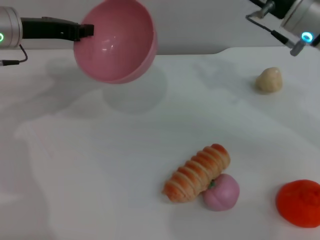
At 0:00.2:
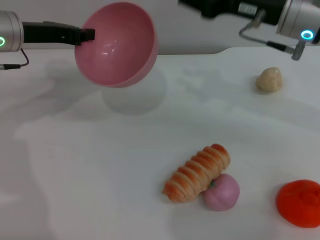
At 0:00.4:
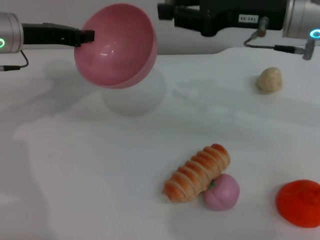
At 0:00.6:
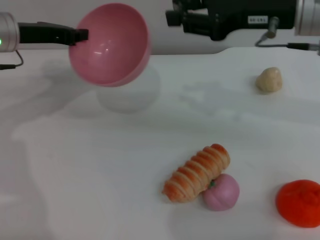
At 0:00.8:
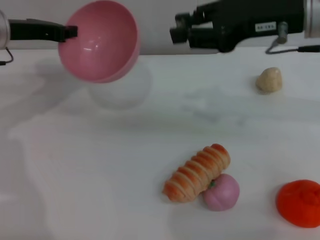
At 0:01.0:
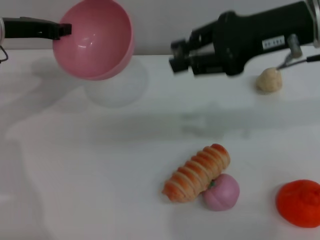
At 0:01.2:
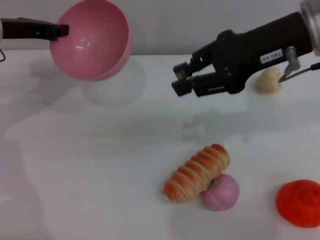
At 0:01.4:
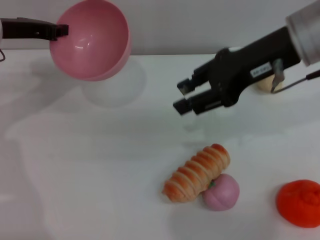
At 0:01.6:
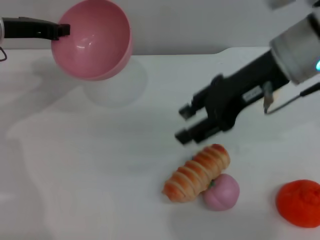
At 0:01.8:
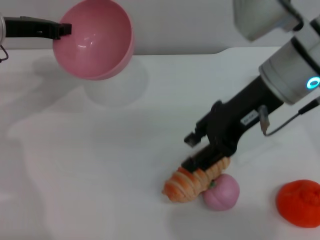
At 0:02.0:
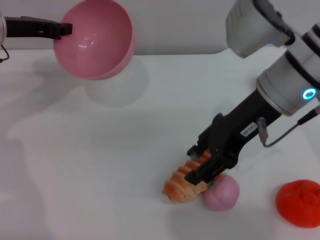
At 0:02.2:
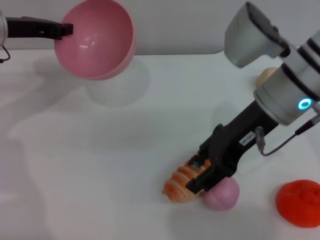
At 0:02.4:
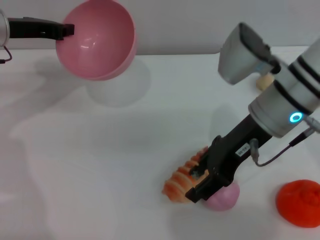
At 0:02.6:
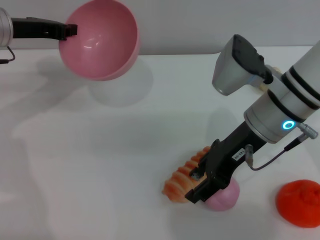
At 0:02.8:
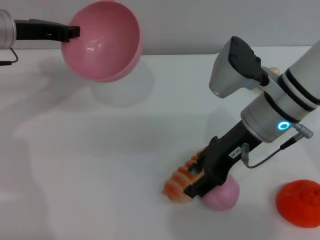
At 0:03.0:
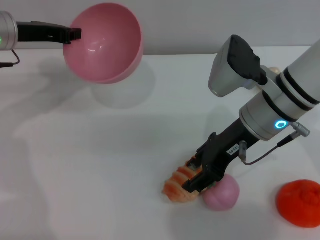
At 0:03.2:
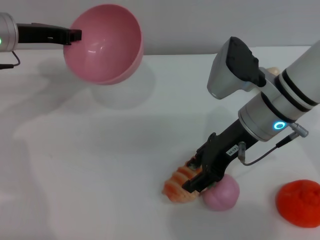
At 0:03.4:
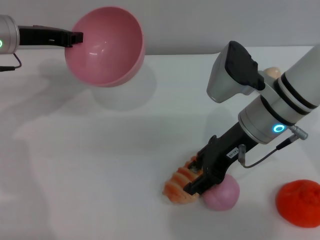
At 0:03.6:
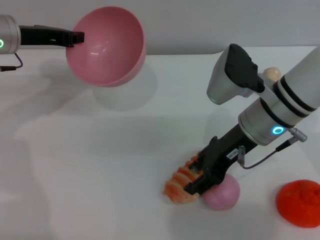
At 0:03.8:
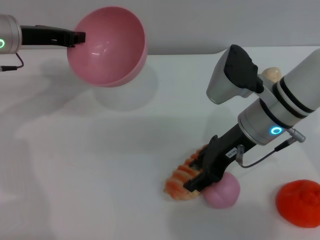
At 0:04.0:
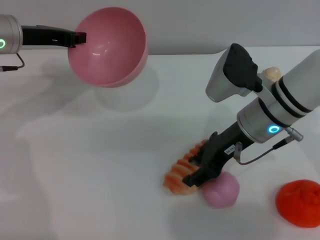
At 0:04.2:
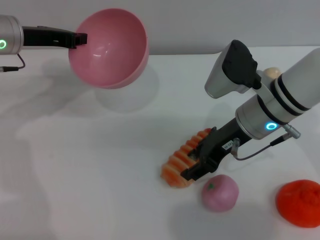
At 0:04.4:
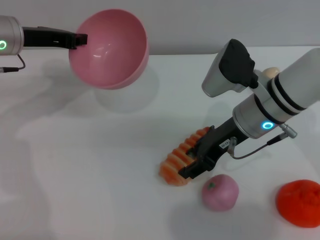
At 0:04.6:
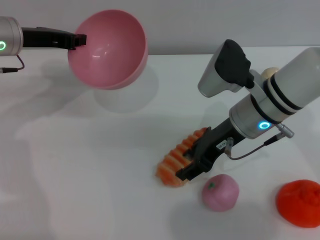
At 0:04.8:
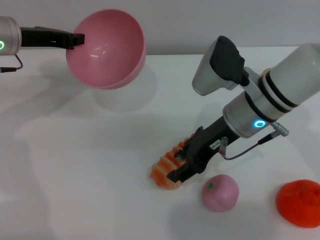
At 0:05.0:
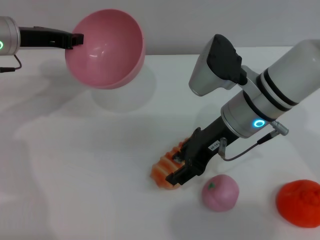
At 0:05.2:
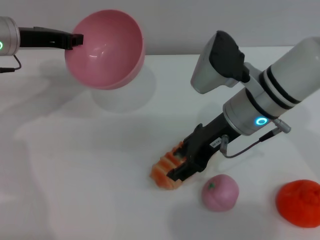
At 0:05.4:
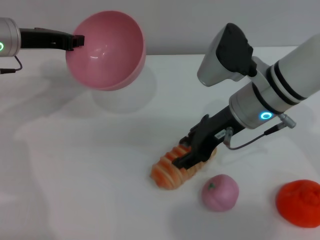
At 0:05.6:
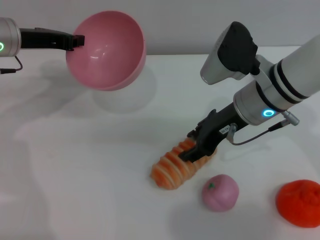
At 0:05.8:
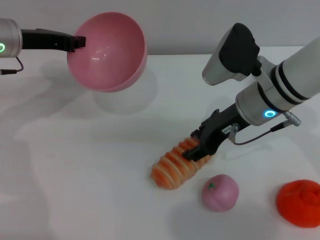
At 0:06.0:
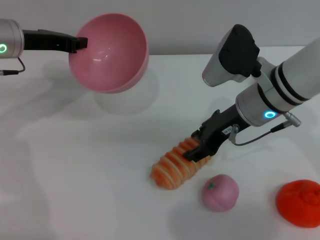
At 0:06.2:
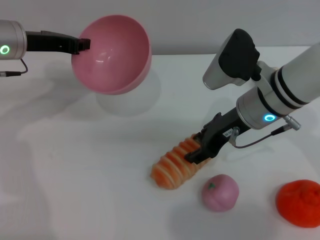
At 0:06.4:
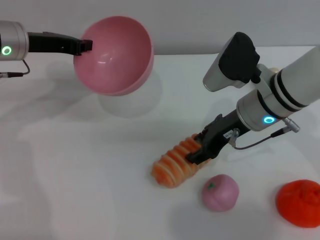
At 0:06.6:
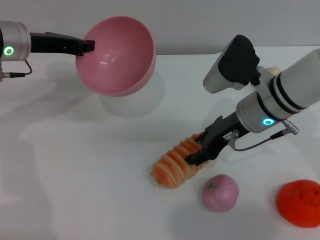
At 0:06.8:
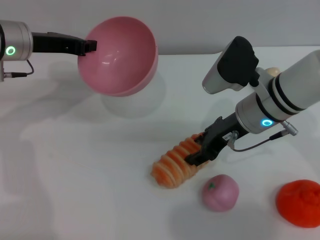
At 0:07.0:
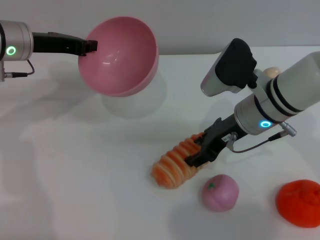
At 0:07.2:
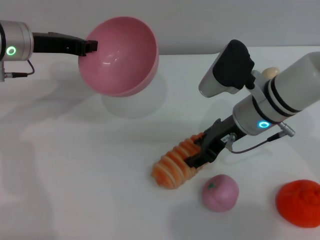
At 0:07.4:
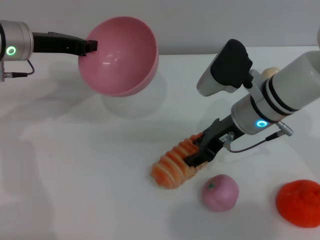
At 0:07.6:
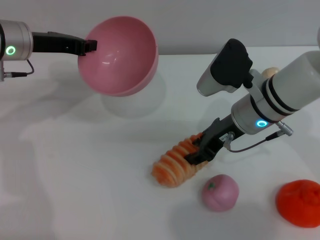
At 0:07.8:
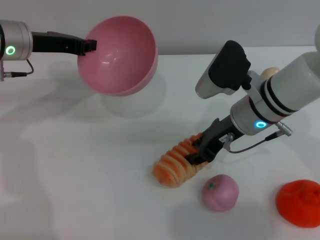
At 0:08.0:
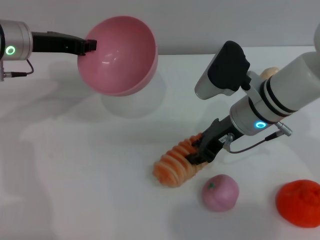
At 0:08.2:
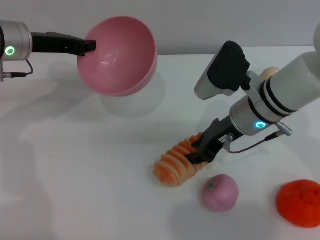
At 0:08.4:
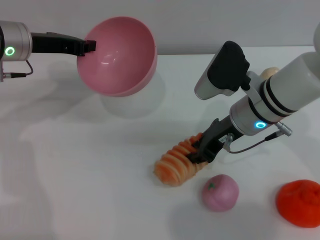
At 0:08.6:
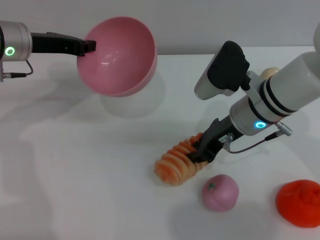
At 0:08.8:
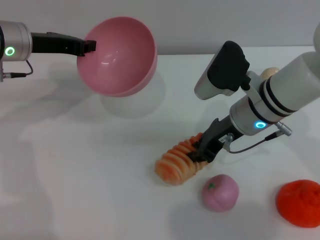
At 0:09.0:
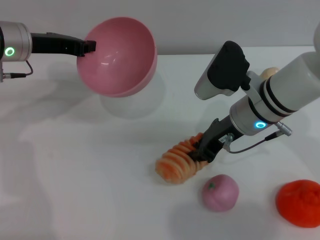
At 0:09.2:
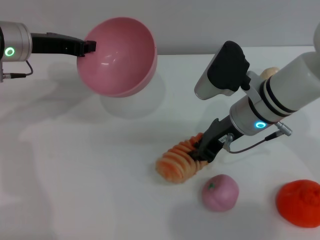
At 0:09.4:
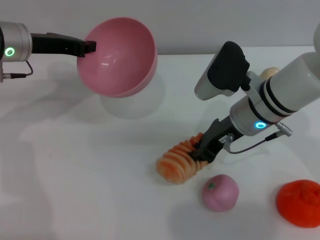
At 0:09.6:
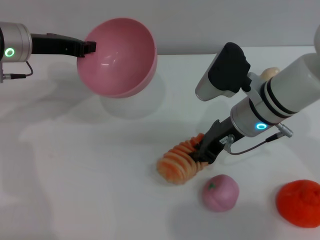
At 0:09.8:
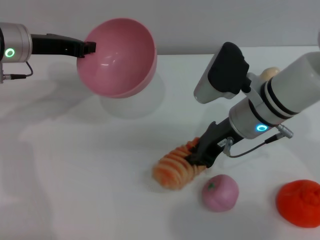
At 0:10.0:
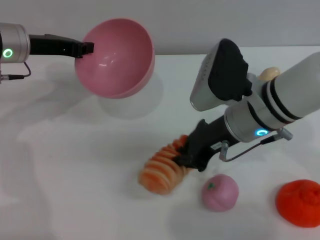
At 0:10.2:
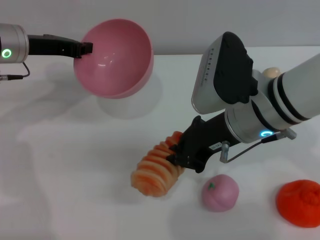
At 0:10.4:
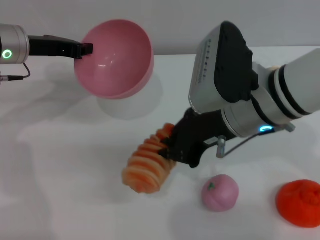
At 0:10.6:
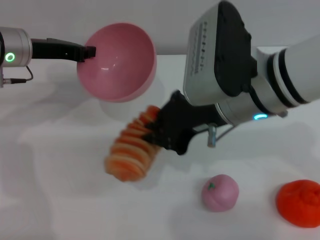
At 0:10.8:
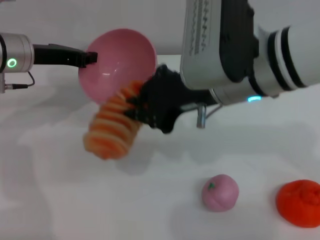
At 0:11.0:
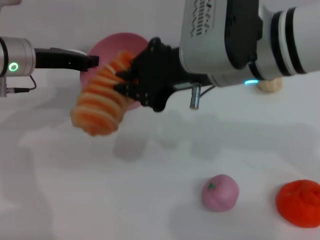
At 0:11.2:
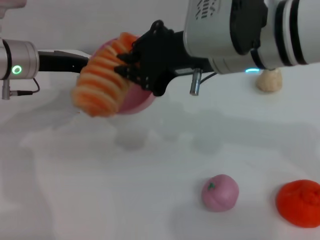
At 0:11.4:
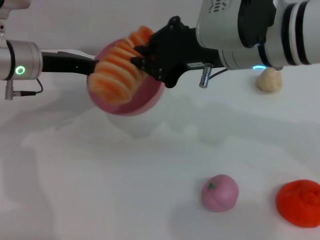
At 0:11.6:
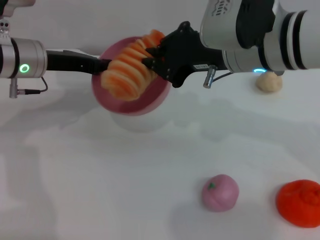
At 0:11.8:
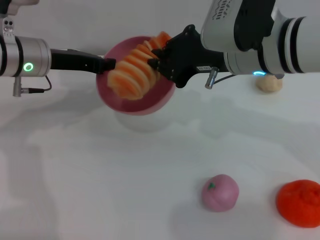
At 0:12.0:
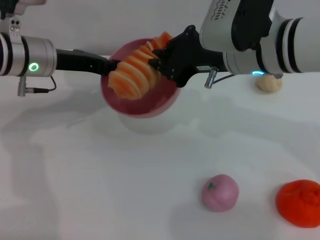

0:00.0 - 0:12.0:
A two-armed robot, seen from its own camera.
Task of the whole recording: put the bread into the pink bowl and pour it out repeatedly.
Step, 0:00.0 - 0:10.4: Pick up the bread with the right gripper.
0:00.0 - 0:01.6: The right gripper shifts by roughly 5 cm.
0:01.6 - 0:03.0: The right gripper shifts some 10 cm downward.
0:03.0 - 0:07.6: There are only small adjustments of the grippers.
0:07.6 - 0:09.0: The right gripper closes.
0:09.0 - 0:10.4: The right gripper is displaced upward and backward by some 10 cm.
0:10.4 - 0:12.0: The right gripper moves some 5 cm.

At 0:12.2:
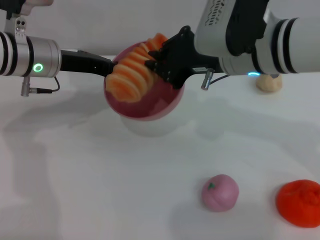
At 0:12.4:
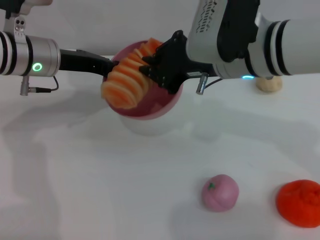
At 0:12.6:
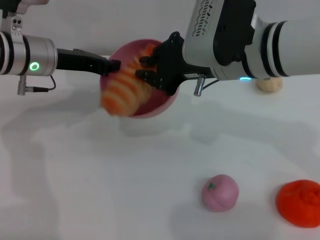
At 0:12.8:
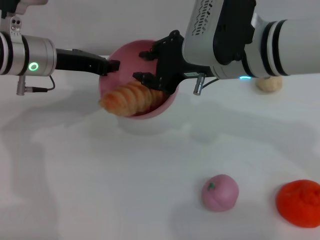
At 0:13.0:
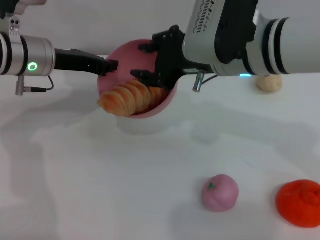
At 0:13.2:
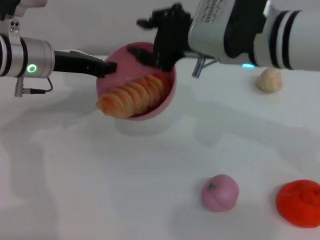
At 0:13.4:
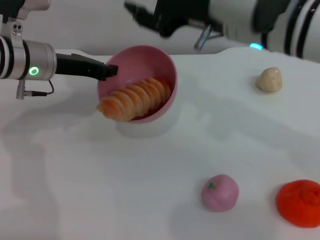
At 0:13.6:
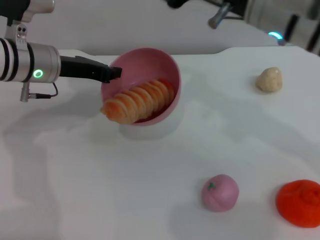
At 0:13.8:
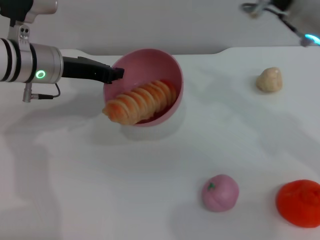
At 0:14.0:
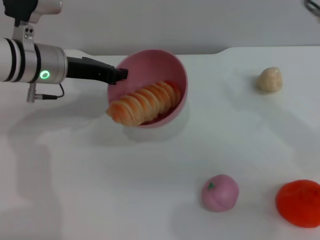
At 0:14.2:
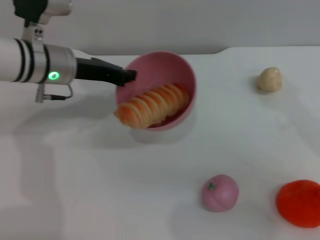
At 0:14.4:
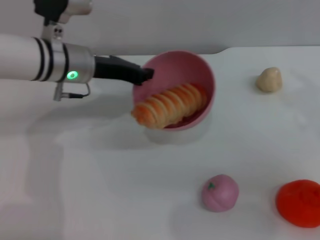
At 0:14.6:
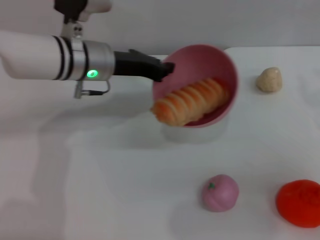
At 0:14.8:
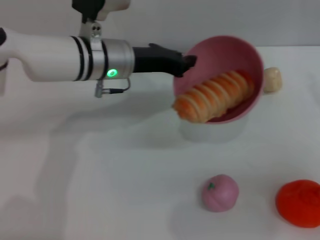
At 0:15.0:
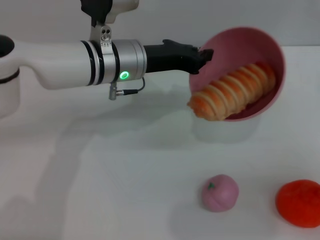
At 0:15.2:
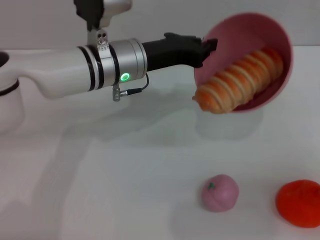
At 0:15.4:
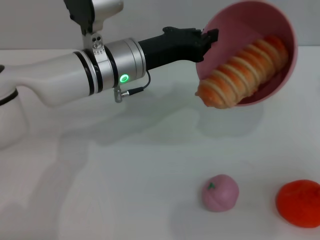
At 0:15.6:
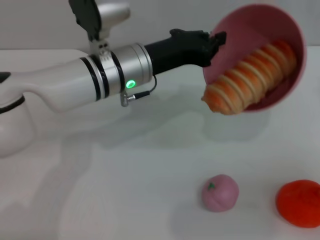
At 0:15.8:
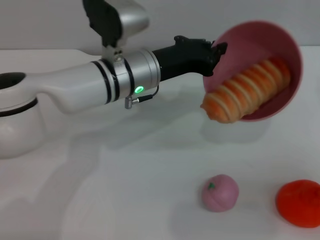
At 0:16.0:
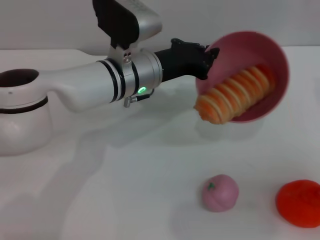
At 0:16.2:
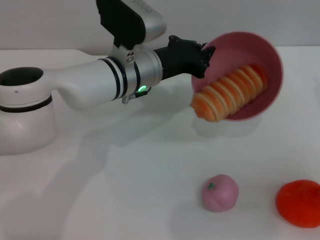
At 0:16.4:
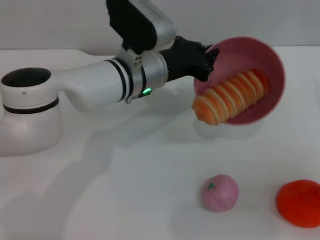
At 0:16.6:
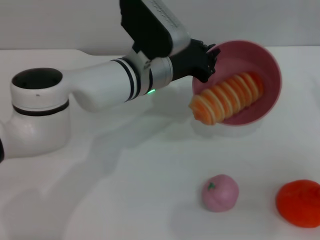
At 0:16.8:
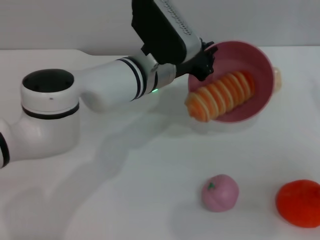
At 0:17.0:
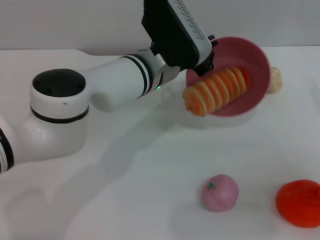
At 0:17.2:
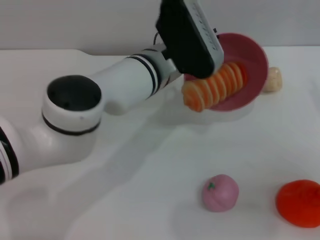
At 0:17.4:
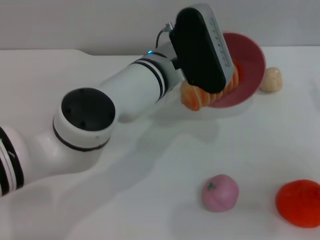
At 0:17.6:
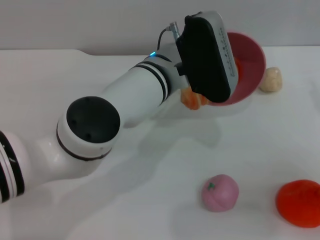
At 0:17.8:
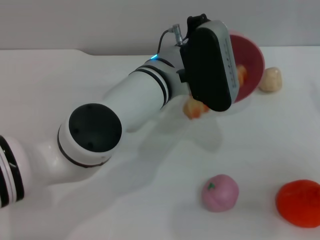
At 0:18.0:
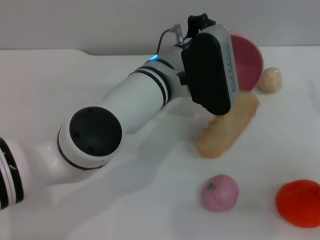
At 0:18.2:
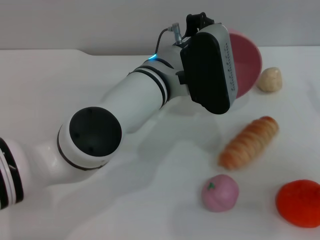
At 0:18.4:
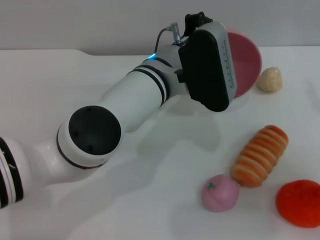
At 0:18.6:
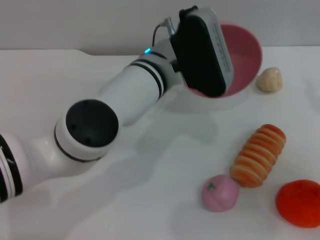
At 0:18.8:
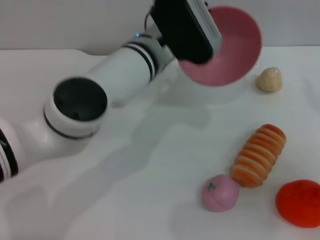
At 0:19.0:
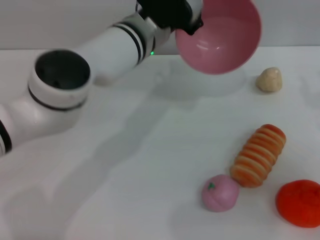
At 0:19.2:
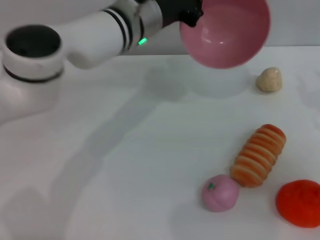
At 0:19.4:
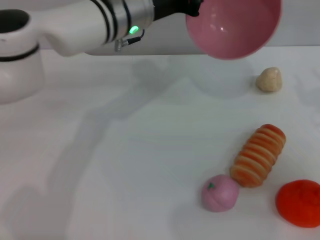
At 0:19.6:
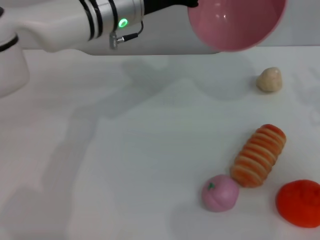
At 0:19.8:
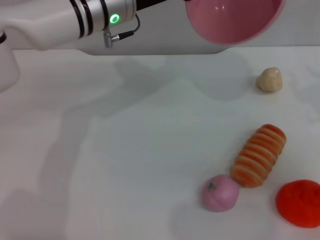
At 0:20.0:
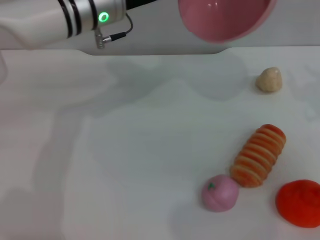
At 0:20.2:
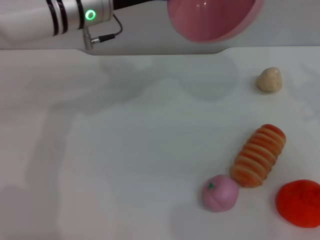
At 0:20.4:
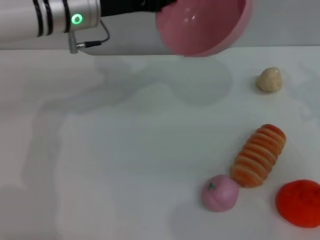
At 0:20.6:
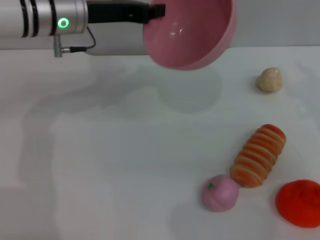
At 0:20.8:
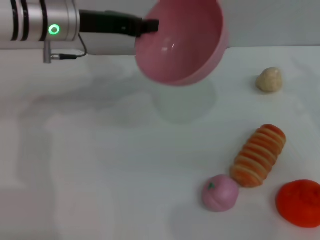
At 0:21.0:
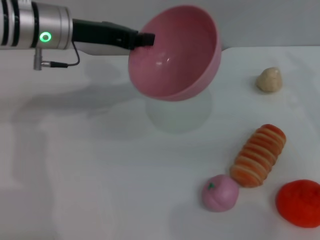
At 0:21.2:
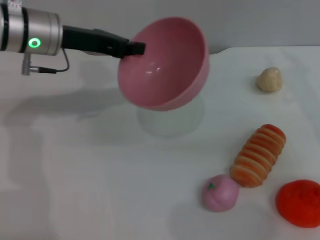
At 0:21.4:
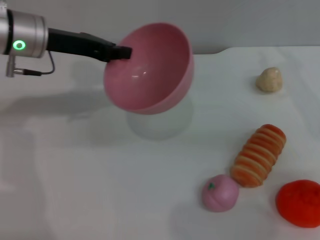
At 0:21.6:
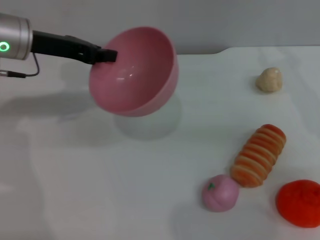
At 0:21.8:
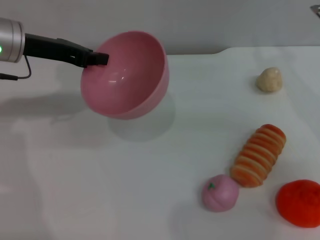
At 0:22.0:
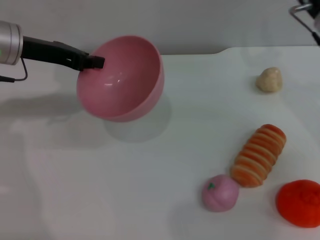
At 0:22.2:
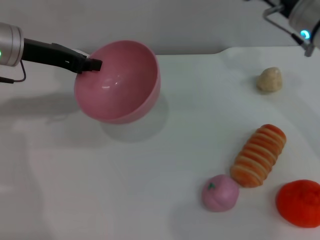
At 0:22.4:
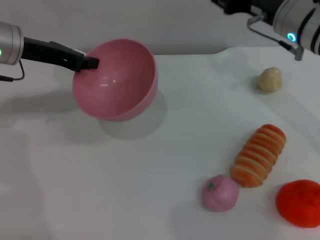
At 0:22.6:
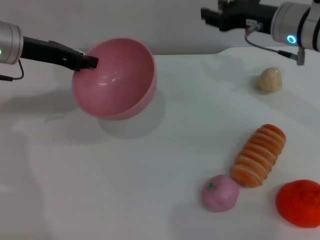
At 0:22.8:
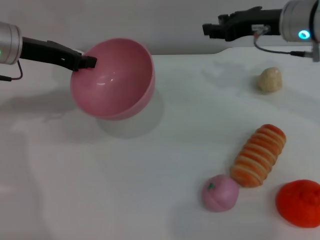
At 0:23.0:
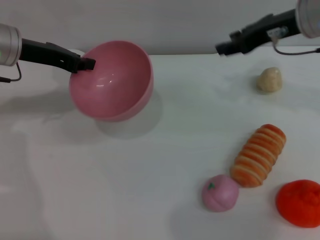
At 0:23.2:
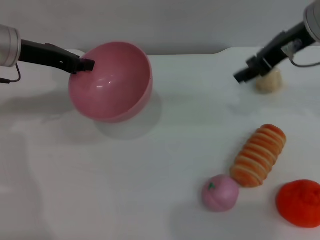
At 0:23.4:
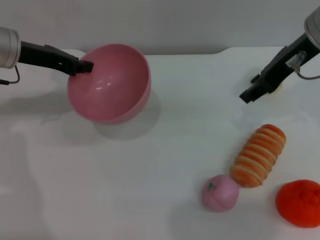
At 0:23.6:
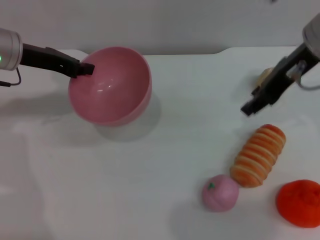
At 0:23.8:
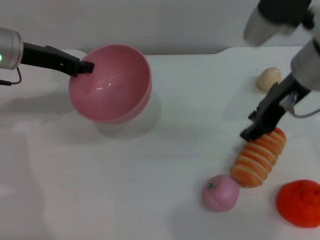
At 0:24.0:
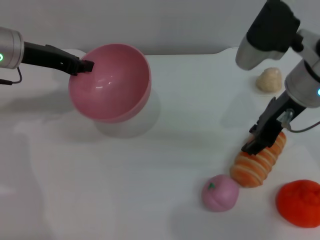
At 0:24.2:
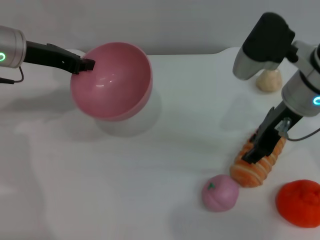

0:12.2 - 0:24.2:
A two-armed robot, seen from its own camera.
Task of the whole recording: put the bread into the pink bowl and pour it out repeatedly.
Step, 0:13.6 - 0:18.8: Pour the bread out of the bowl.
0:12.2 - 0:13.8: The right gripper shifts roughly 5 cm to the right, and opens its fingers.
0:13.8 - 0:15.2: The left gripper is displaced to the right by roughly 10 cm. The right gripper heads to the right and downward, covering roughly 20 cm.
0:18.2 - 0:19.8: The left gripper travels to the left, forward and upward by approximately 15 cm.
0:19.8 - 0:21.2: The left gripper travels to the left by approximately 10 cm; the right gripper ends up approximately 5 cm from where it was.
0:21.2 - 0:22.6: The right gripper travels to the left and forward by some 10 cm; the left gripper travels to the left by some 5 cm.
0:22.6 - 0:24.2: The right gripper is displaced backward by approximately 5 cm, and moves about 10 cm upward and comes back.
